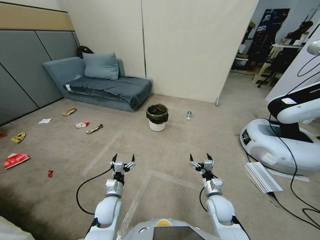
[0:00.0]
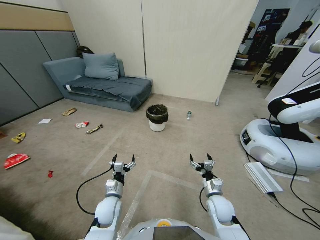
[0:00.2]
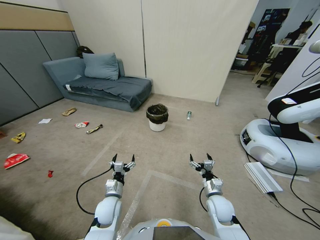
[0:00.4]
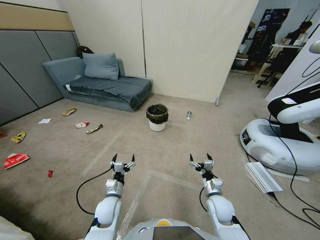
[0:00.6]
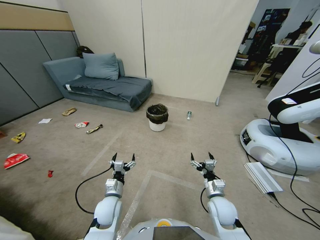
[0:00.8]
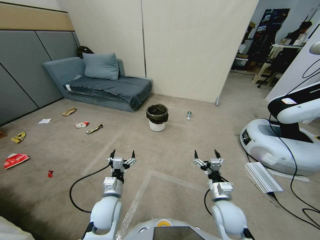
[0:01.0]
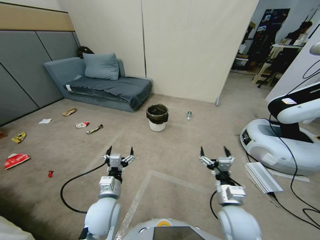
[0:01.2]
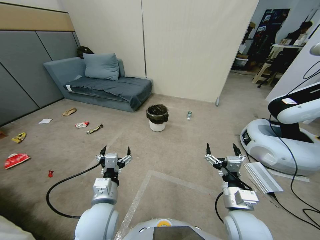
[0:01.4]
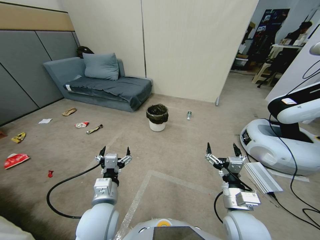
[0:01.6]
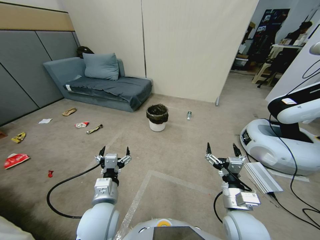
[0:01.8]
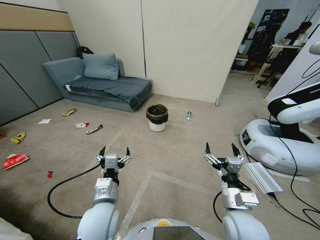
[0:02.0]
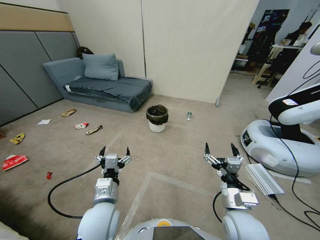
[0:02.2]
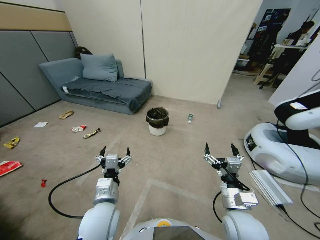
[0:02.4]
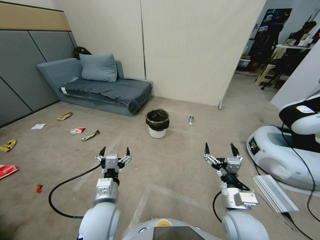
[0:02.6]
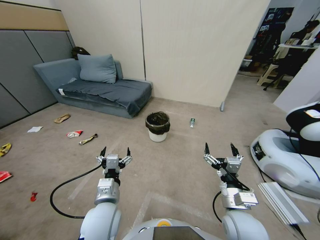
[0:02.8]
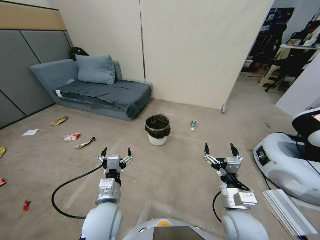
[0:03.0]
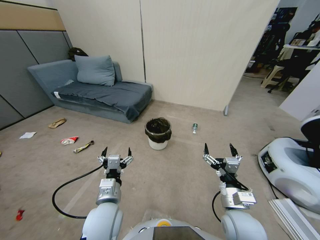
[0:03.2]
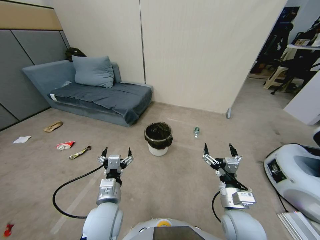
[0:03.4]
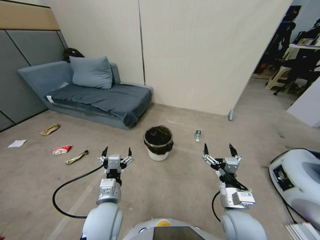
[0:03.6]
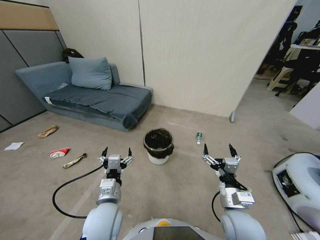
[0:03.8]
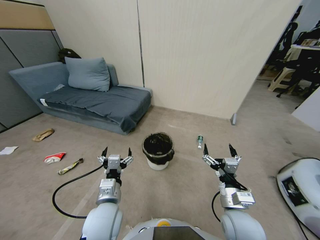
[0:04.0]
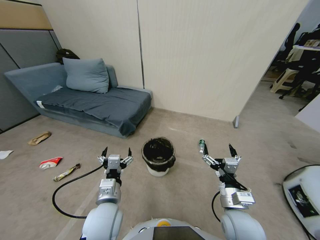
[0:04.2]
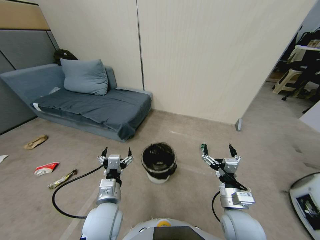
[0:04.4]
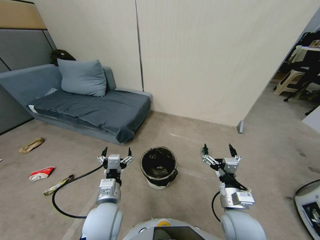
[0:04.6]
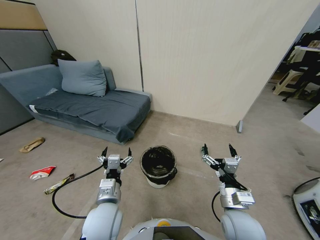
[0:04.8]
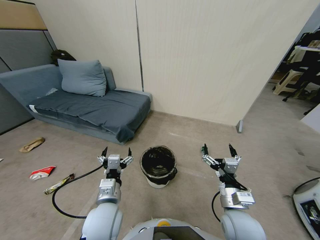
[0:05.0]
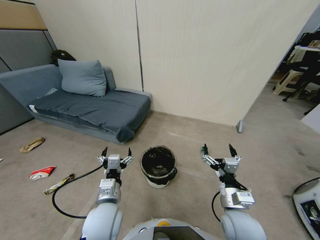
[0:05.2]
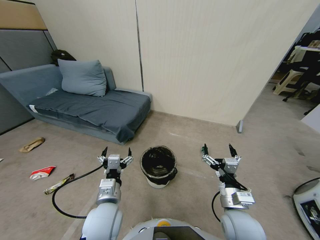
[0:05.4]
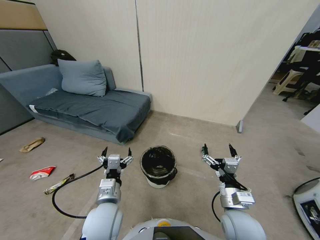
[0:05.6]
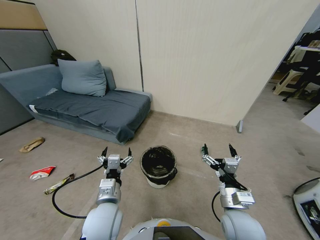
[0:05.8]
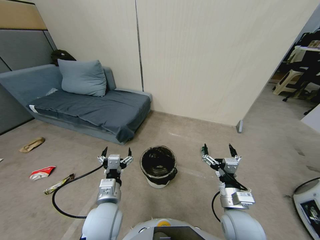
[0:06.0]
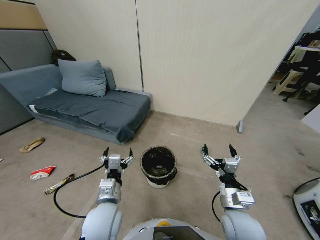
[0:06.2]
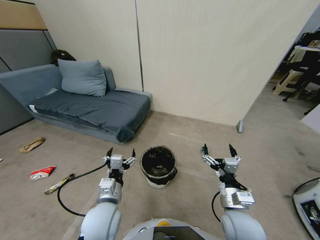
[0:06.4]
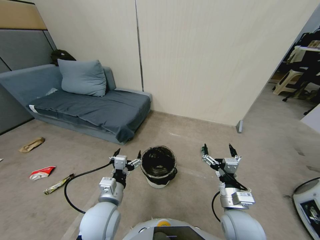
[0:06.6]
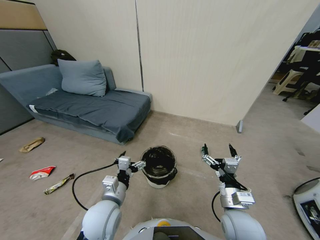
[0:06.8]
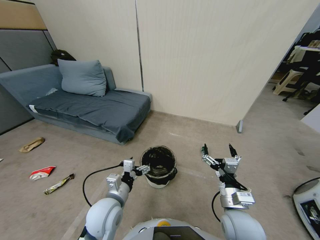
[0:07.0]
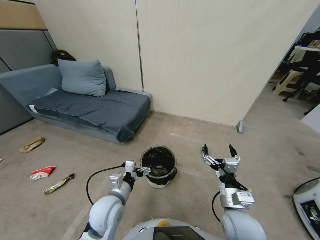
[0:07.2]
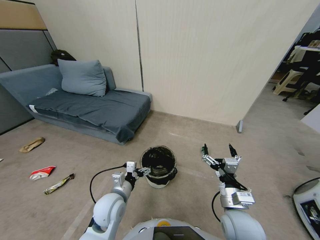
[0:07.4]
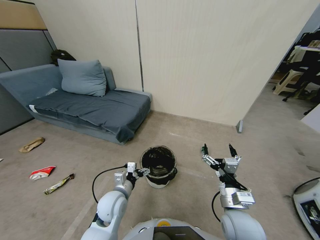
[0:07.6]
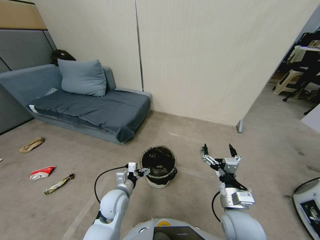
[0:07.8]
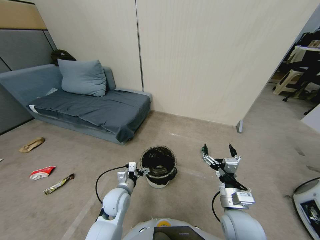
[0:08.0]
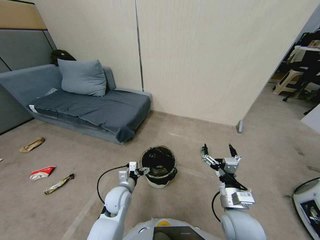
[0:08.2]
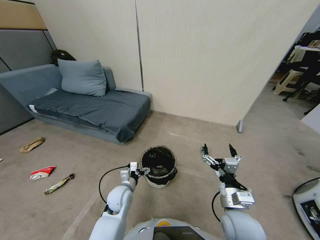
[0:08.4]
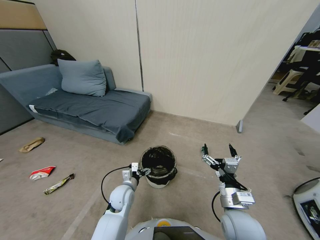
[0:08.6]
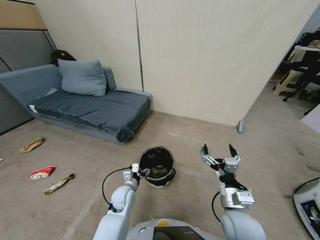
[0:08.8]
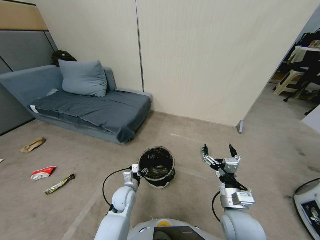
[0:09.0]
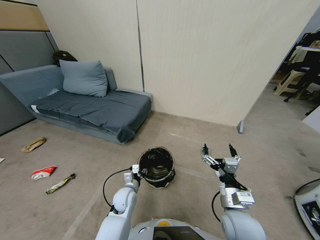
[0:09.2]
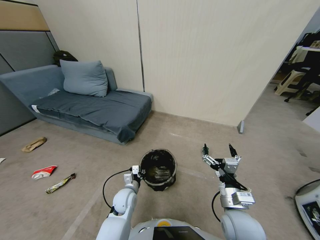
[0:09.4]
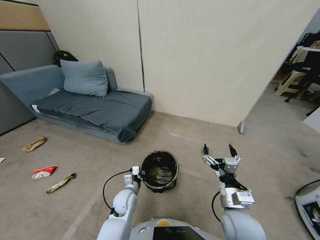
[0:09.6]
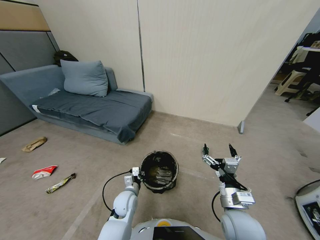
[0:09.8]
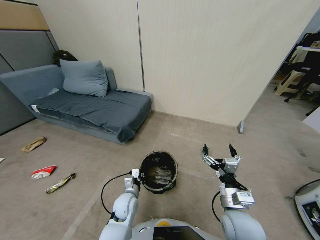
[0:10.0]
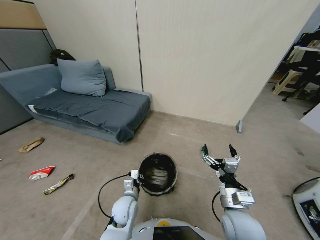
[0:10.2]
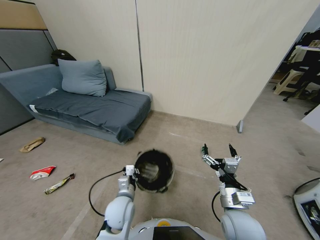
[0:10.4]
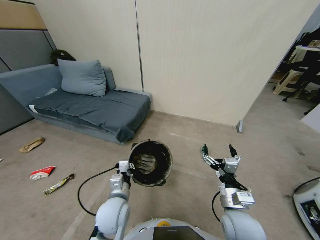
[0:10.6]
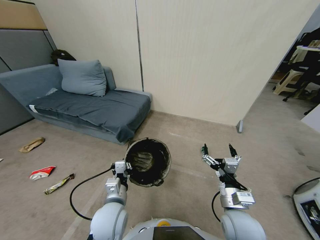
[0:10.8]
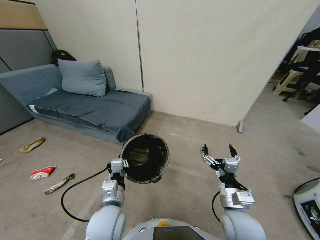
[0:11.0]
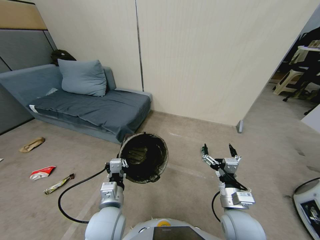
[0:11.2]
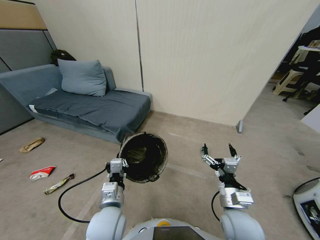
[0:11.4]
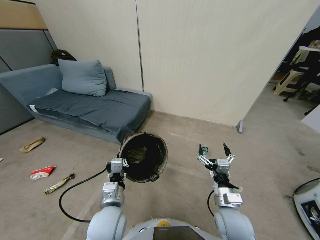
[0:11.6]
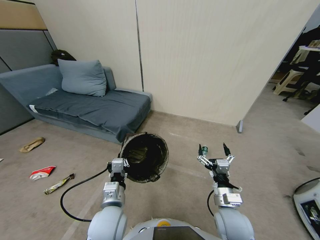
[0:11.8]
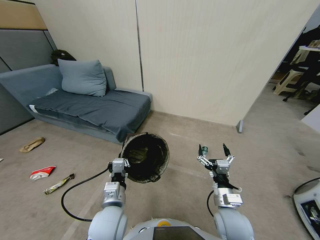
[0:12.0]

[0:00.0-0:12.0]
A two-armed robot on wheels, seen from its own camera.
Task of the whole recording: Pick up the trash bin, then pick up the garbage from the floor and place it into the trash bin.
0:04.4 to 0:06.0: Both grippers stay put.
0:06.0 to 0:07.6: The left gripper travels downward and forward by about 10 cm.
0:07.6 to 0:09.0: The left gripper travels downward by roughly 5 cm, and closes its fingers.
0:09.0 to 0:10.4: The left gripper shifts some 15 cm upward and backward, and closes up.
0:10.4 to 0:12.0: The grippers stay close to where they were, moving slightly.

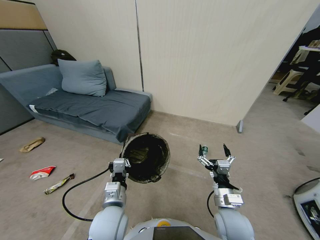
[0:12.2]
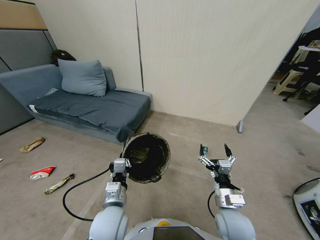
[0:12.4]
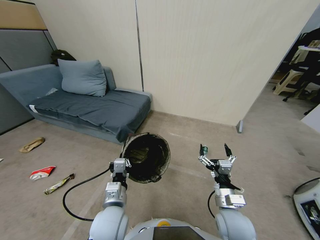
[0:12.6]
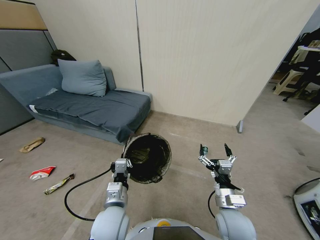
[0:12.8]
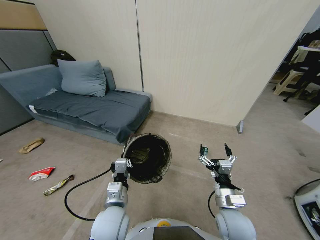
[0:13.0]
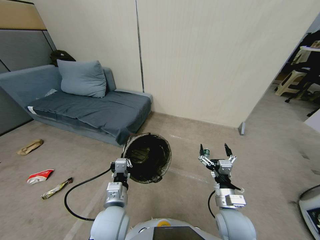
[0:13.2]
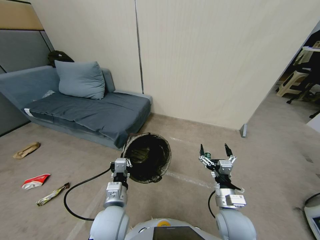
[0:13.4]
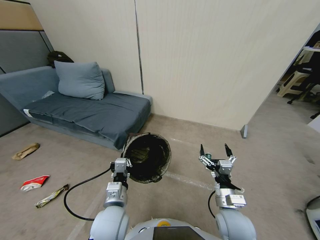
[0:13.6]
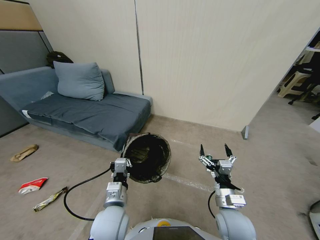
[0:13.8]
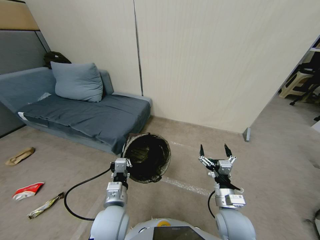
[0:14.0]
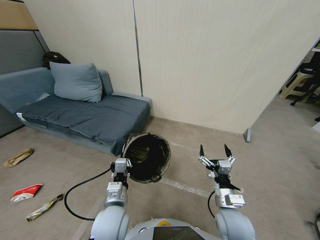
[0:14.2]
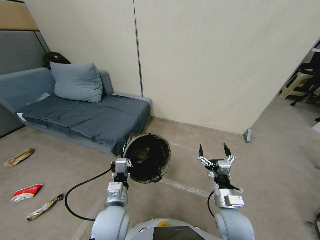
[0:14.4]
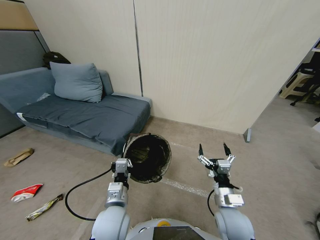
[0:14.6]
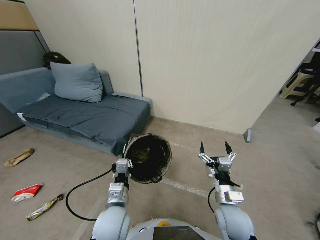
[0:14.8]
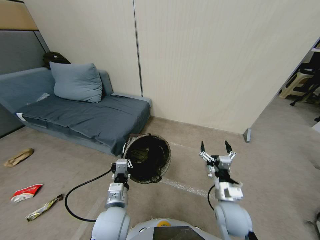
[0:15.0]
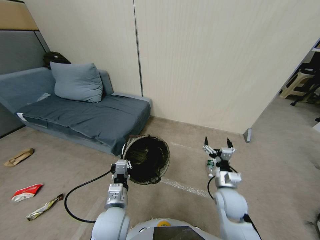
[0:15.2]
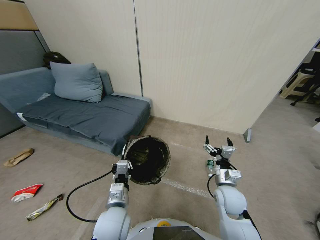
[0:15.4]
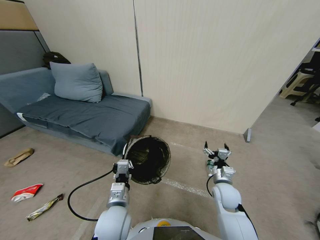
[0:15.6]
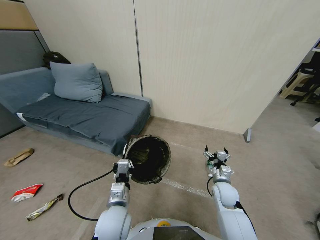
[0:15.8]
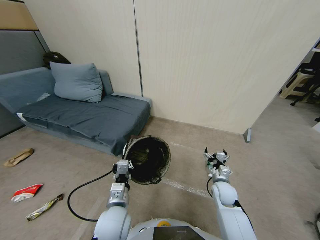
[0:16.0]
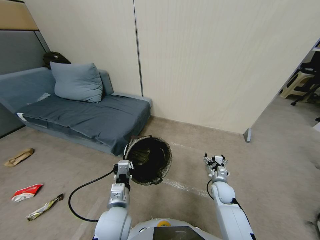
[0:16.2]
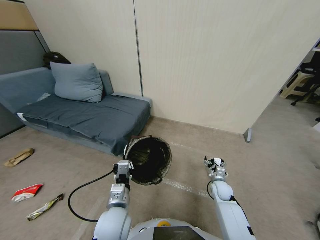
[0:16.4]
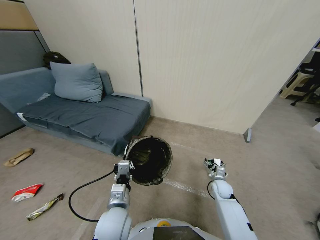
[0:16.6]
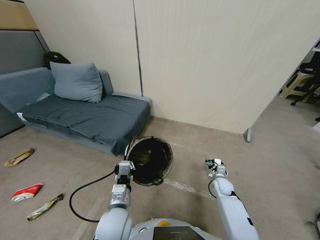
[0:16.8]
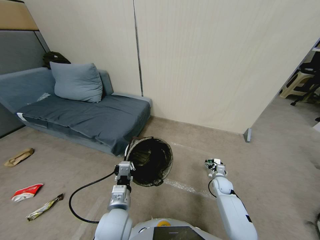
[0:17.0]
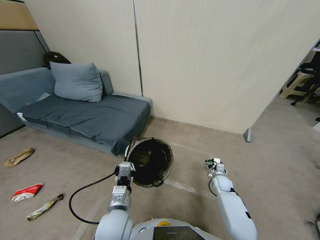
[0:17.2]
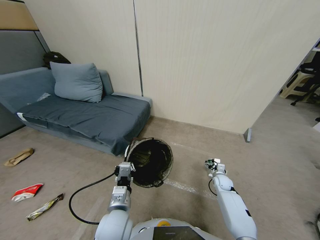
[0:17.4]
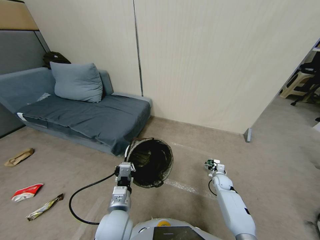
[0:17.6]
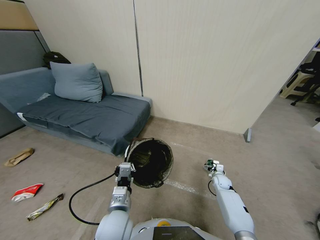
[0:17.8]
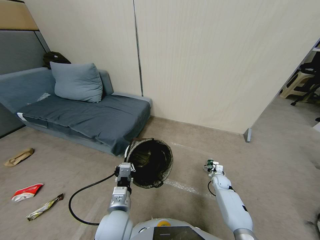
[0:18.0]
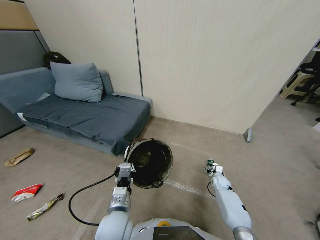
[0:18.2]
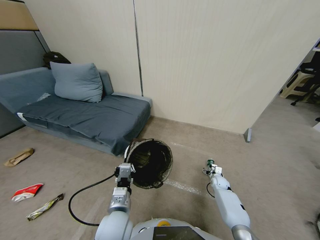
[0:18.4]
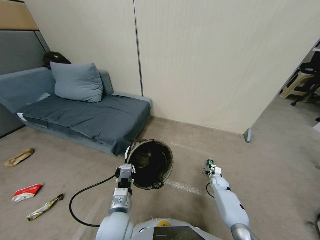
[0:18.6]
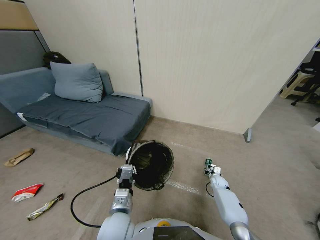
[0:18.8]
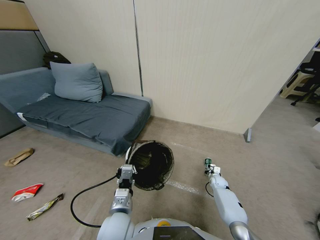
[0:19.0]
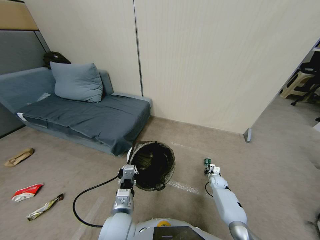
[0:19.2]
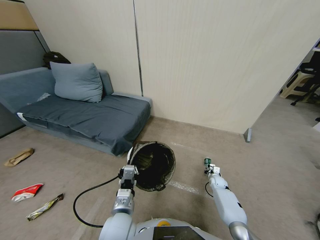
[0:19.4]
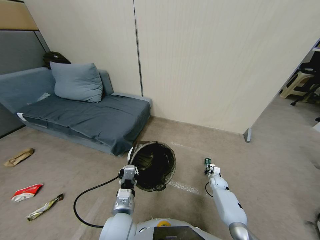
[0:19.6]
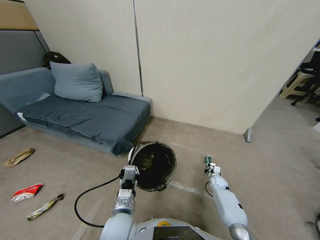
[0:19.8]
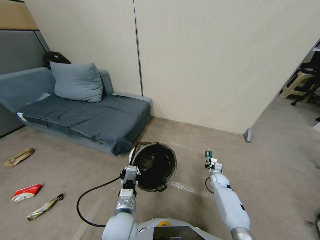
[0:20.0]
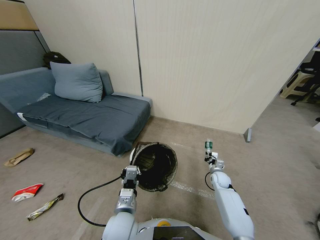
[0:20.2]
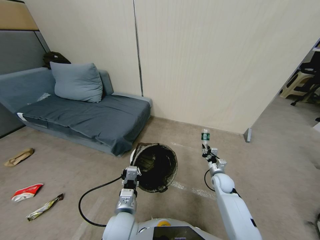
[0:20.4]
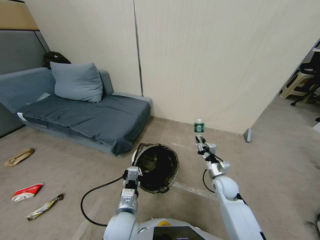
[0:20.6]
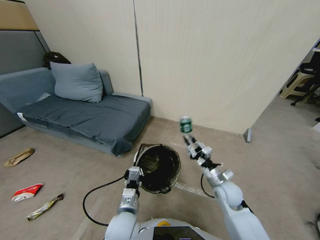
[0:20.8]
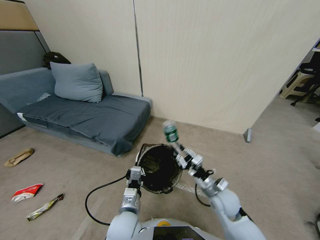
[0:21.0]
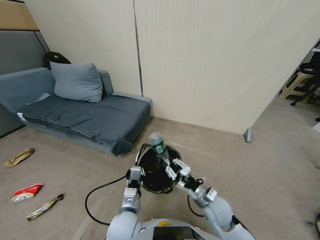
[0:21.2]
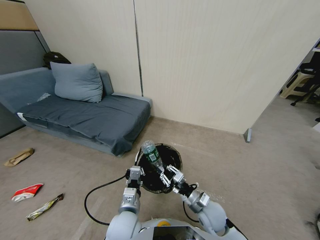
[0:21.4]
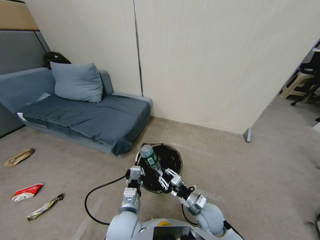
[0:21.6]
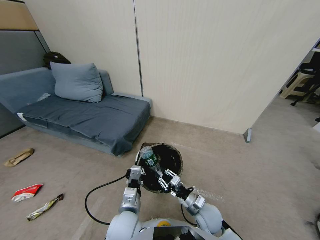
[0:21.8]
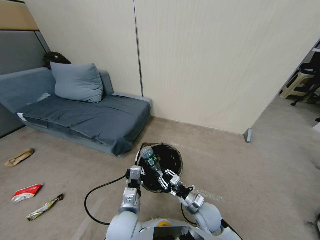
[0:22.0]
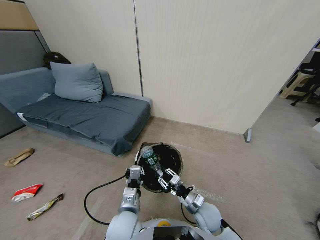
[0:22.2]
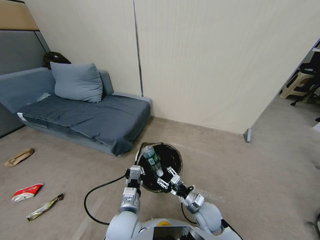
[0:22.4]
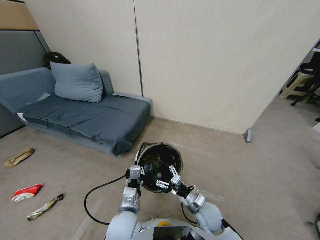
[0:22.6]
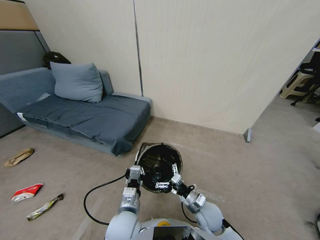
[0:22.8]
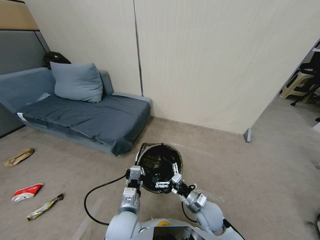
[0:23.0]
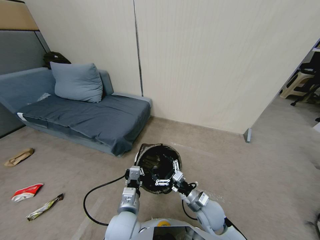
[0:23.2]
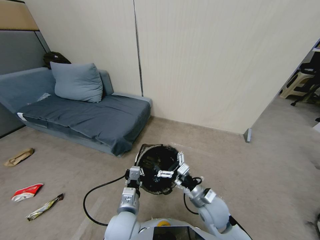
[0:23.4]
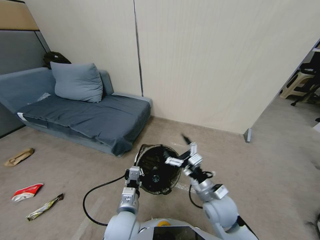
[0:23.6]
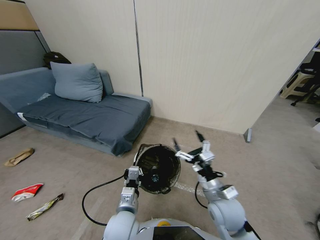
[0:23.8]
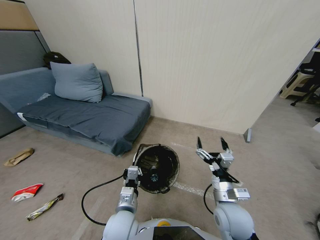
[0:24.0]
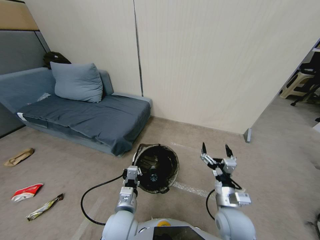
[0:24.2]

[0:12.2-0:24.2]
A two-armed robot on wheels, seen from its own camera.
Task of the whole recording: Pick up the trash bin, then pick up the garbage from the floor and place it into the trash bin.
0:12.2 to 0:13.8: Neither gripper changes place.
0:13.8 to 0:15.2: The right gripper moves forward, approximately 10 cm.
0:15.2 to 0:16.6: The right gripper moves downward, forward and to the right, approximately 20 cm.
0:16.6 to 0:18.2: The right gripper is displaced downward by roughly 5 cm.
0:18.2 to 0:19.8: The right gripper closes up.
0:19.8 to 0:21.2: The right gripper goes approximately 30 cm backward, to the left and upward.
0:21.2 to 0:22.6: The right gripper opens its fingers.
0:22.6 to 0:24.2: The right gripper goes some 10 cm upward.
